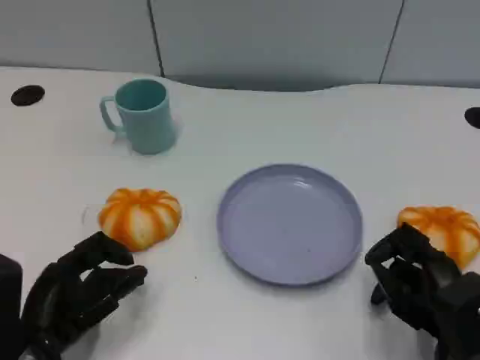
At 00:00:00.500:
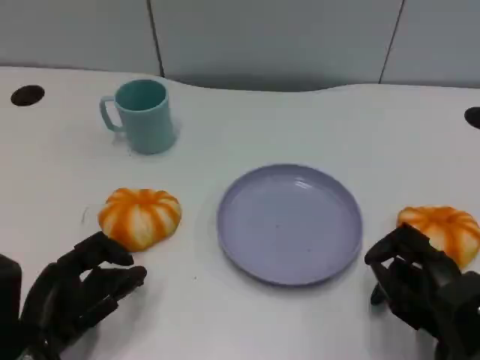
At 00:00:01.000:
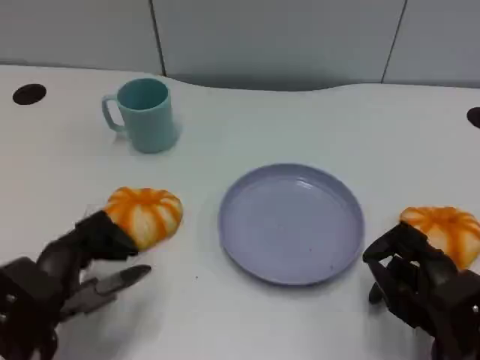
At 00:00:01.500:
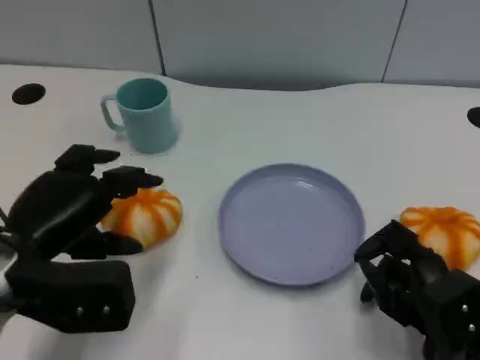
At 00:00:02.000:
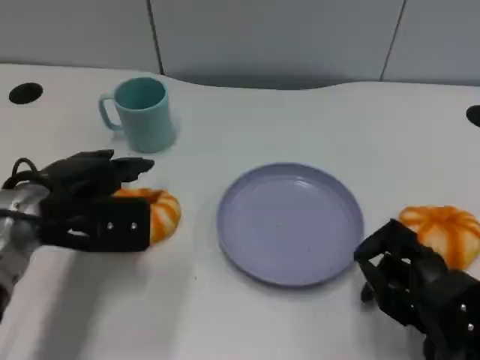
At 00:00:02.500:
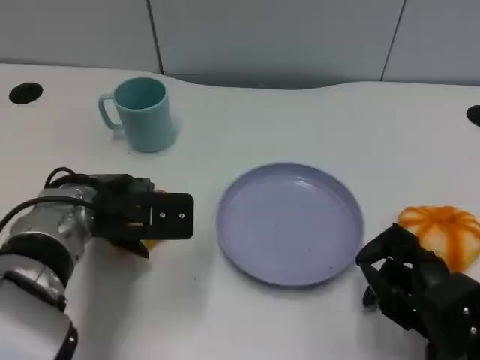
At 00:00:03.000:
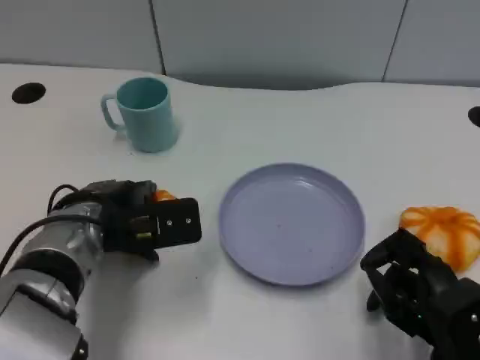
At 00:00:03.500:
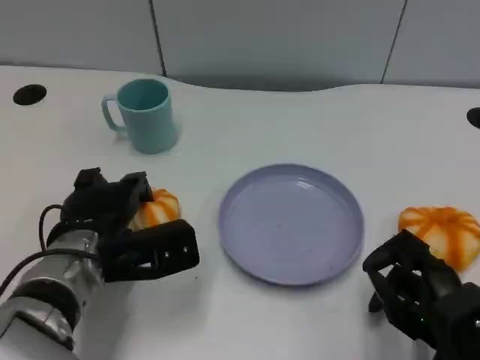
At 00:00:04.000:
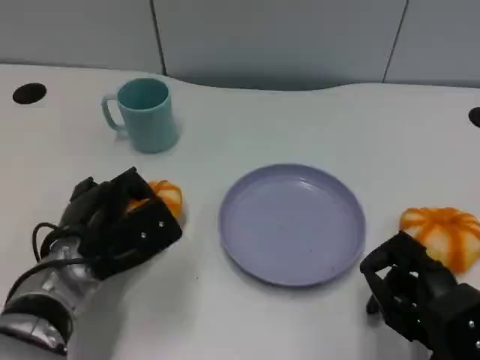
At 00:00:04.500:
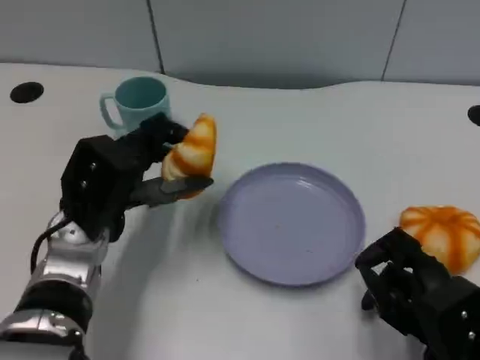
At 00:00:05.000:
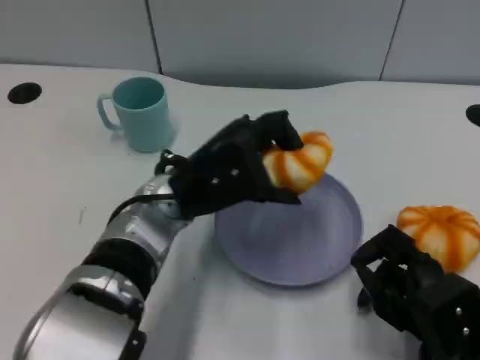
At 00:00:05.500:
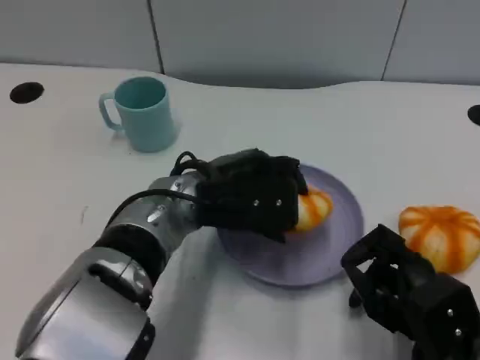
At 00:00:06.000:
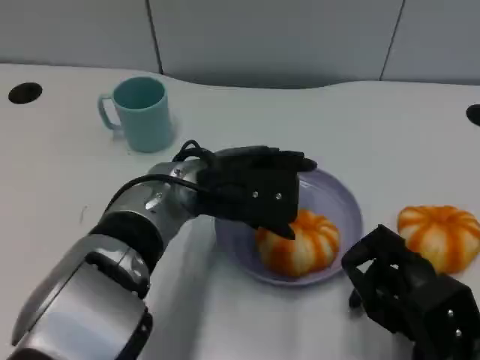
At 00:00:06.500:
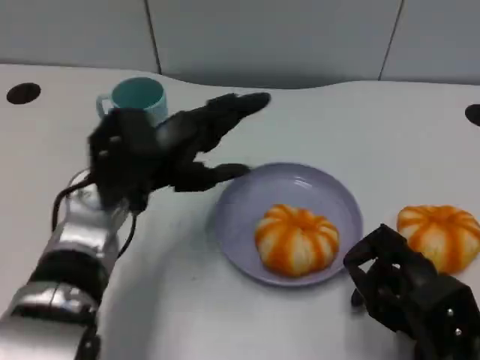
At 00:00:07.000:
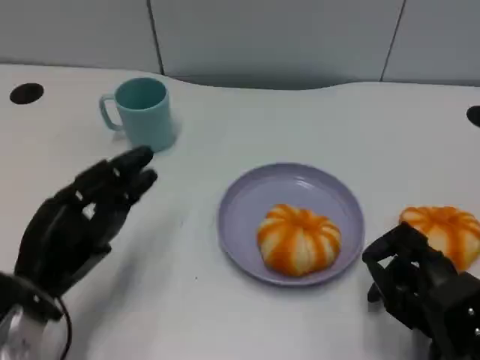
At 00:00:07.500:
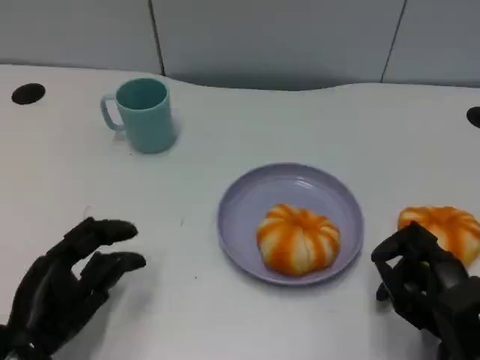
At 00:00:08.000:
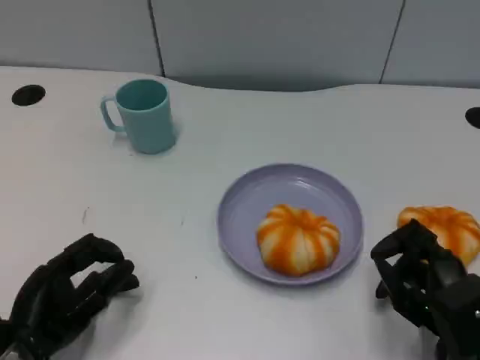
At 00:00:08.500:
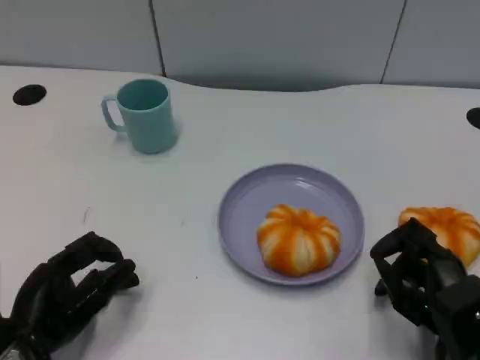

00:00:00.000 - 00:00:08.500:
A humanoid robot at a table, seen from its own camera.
Task of the whole recording: Grasp the bread from the table and place it into the plate.
00:00:00.000 - 00:00:02.000: The left hand goes about 15 cm forward and upward.
00:00:02.000 - 00:00:04.000: The left hand goes some 5 cm downward.
00:00:04.000 - 00:00:06.500: The left hand is displaced upward by roughly 5 cm, and travels to the right and back again, roughly 10 cm each way.
00:00:06.500 - 00:00:08.500: The left hand goes about 15 cm backward, downward and to the left.

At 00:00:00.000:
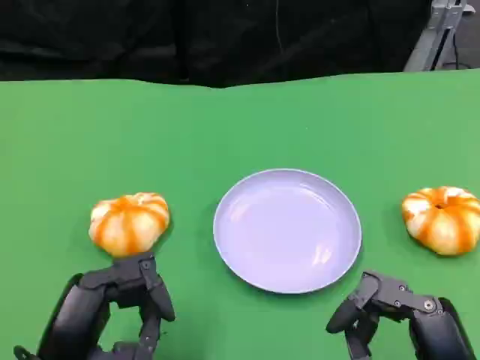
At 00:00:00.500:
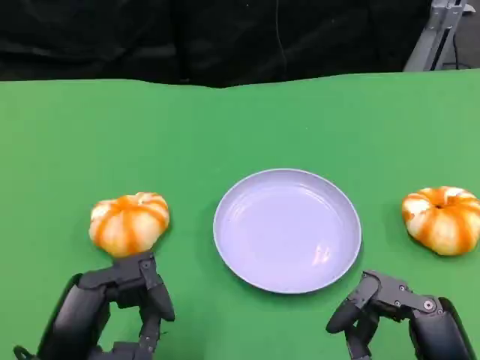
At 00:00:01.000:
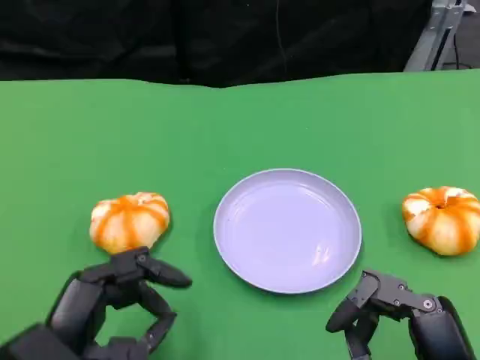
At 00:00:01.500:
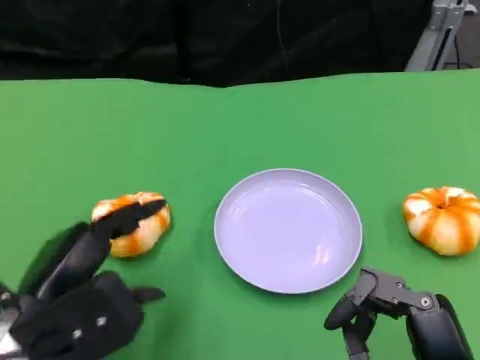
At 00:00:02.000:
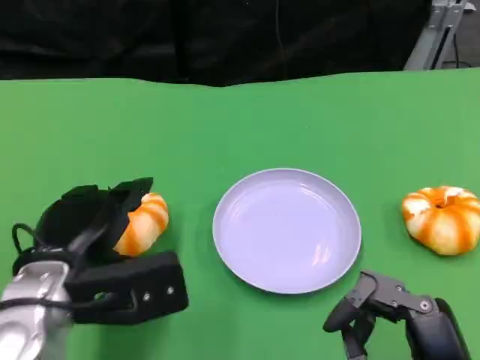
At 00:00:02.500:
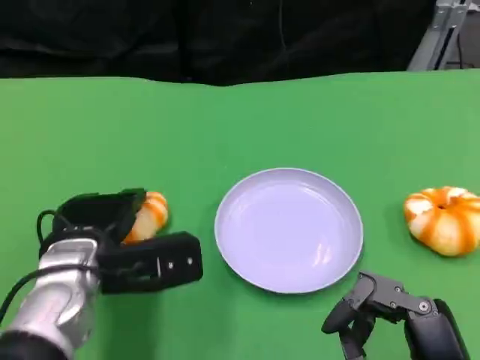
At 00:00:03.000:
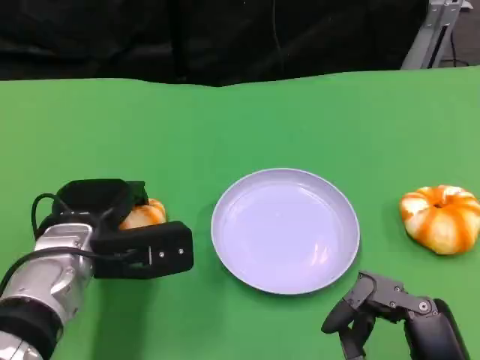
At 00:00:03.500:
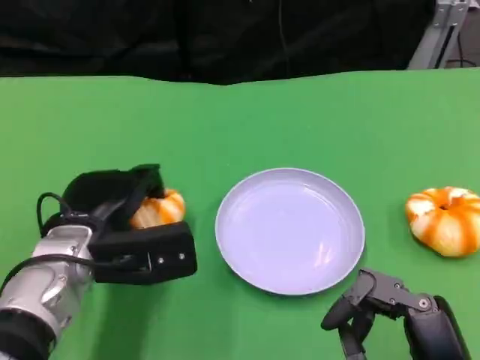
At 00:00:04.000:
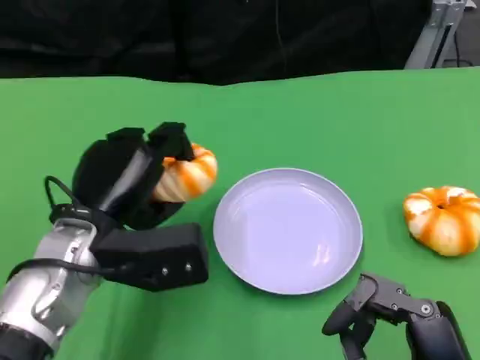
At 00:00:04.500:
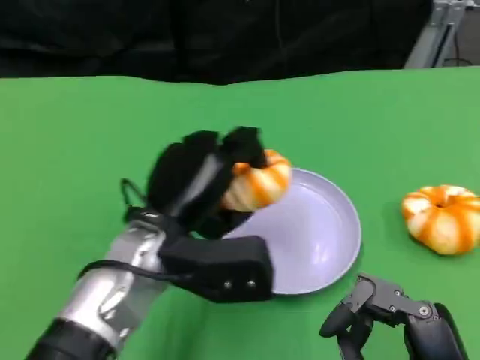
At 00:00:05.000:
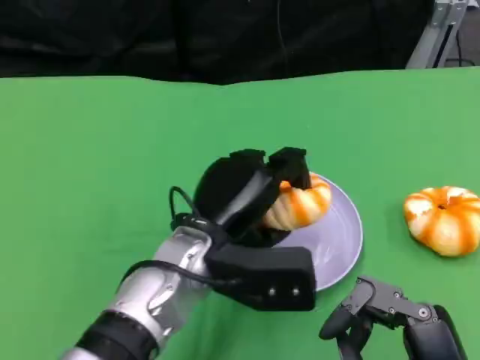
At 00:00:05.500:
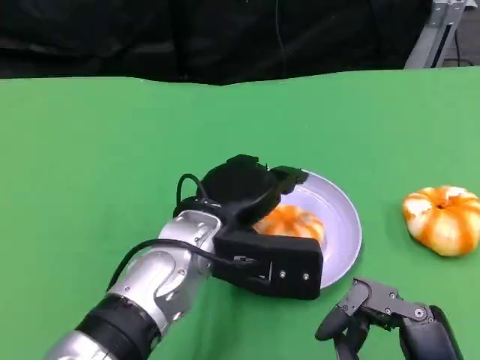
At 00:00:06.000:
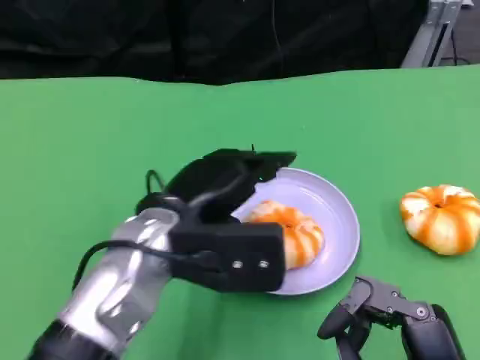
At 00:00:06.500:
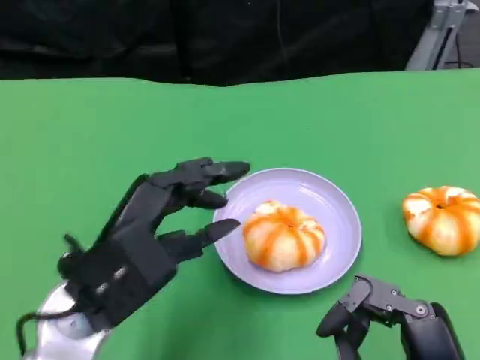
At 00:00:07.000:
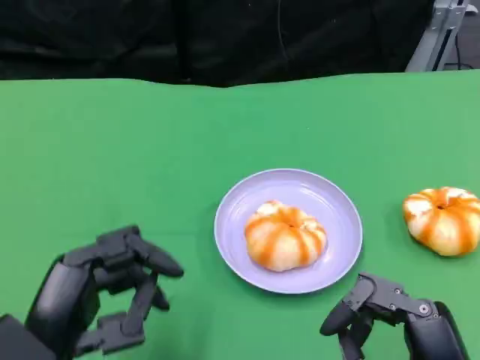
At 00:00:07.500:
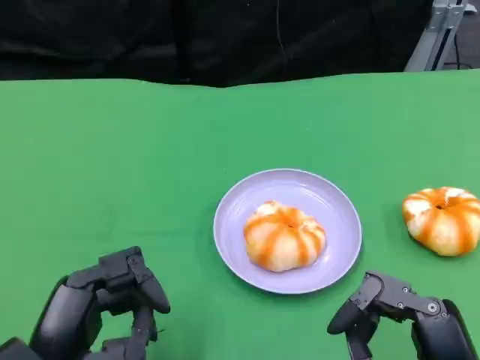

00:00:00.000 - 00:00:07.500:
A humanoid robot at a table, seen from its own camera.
Task of the whole recording: Grasp the bread from the table and place it into the plate.
00:00:00.000 - 00:00:02.000: The left hand is displaced forward by roughly 10 cm.
00:00:04.000 - 00:00:05.500: The left hand goes roughly 10 cm to the right.
00:00:05.500 - 00:00:07.500: The left hand heads to the left and backward, covering some 20 cm.

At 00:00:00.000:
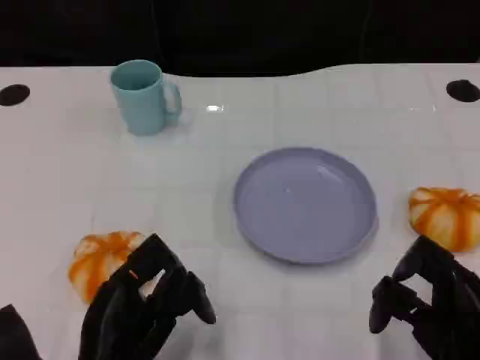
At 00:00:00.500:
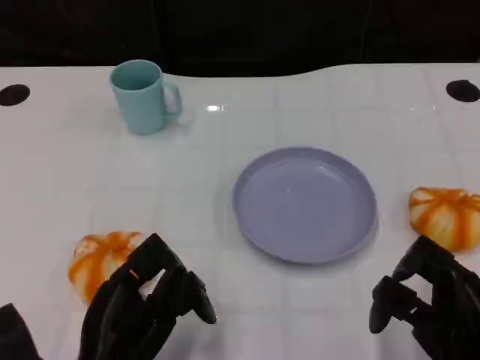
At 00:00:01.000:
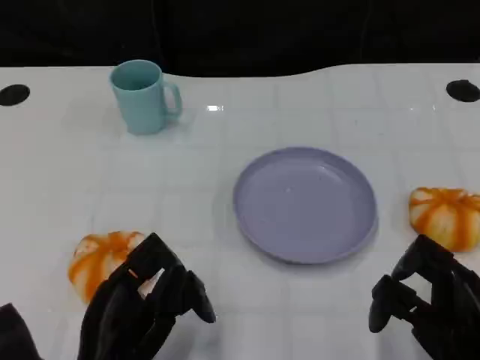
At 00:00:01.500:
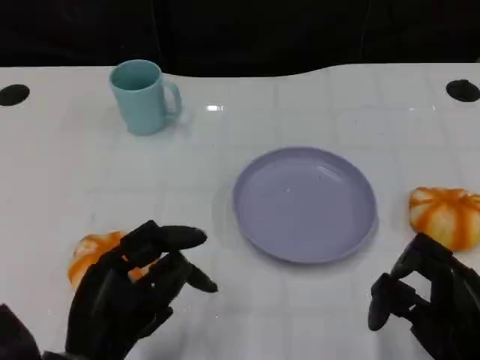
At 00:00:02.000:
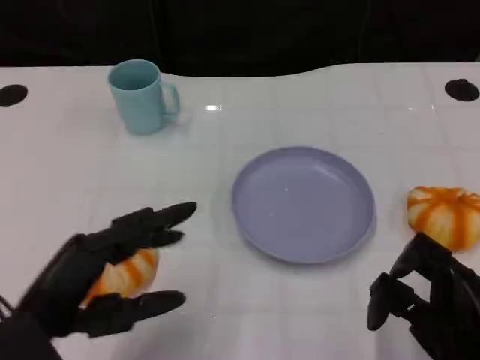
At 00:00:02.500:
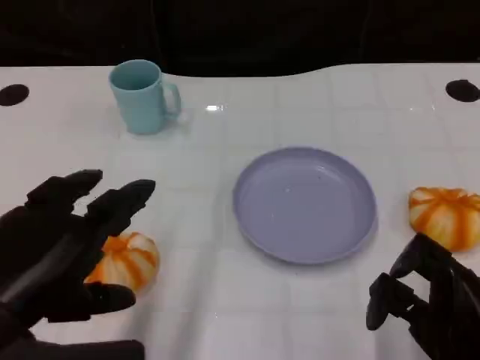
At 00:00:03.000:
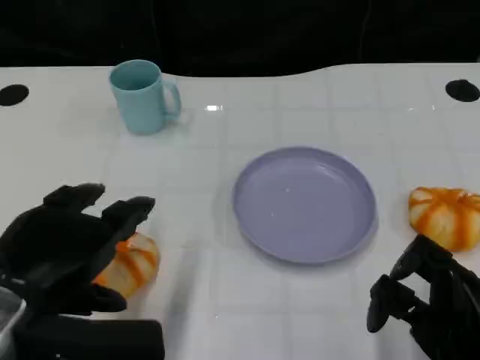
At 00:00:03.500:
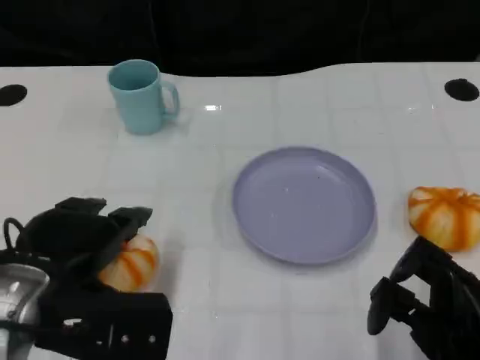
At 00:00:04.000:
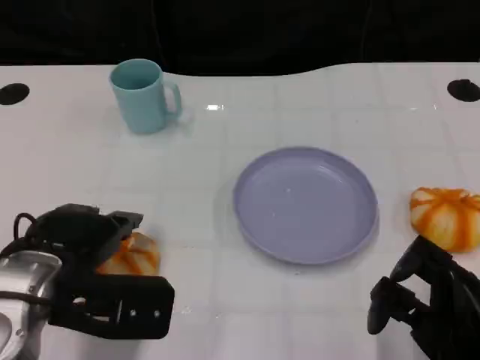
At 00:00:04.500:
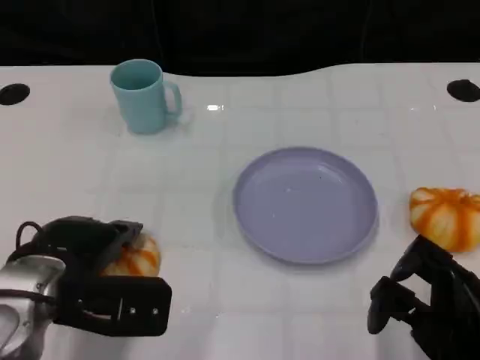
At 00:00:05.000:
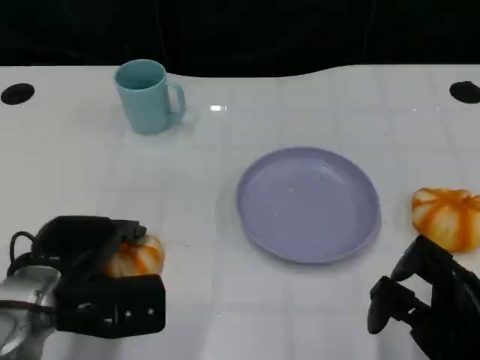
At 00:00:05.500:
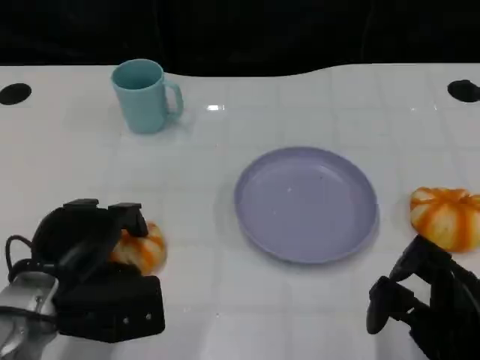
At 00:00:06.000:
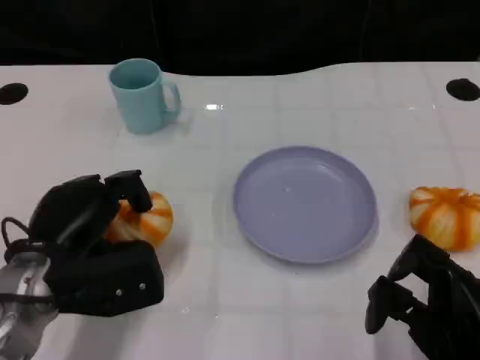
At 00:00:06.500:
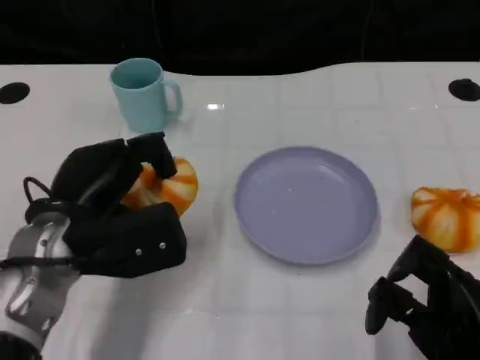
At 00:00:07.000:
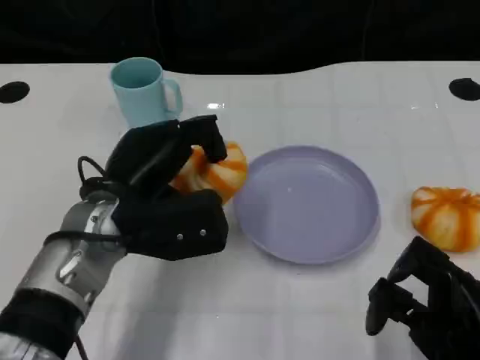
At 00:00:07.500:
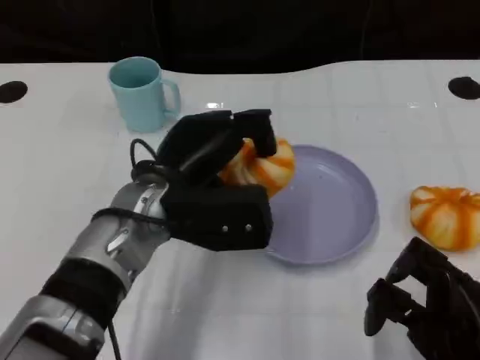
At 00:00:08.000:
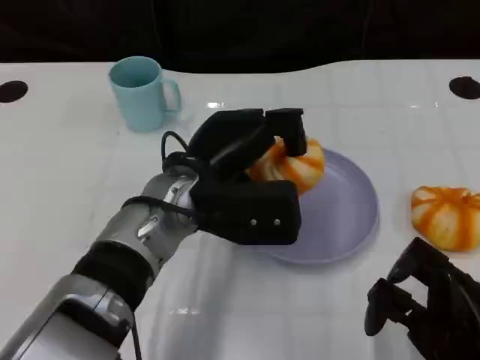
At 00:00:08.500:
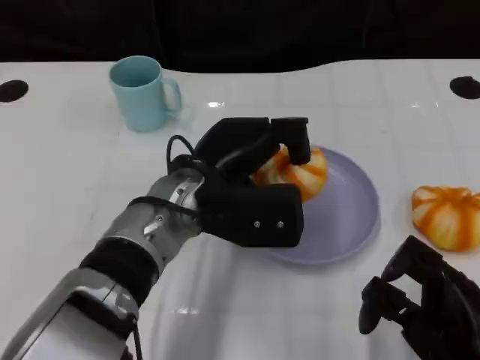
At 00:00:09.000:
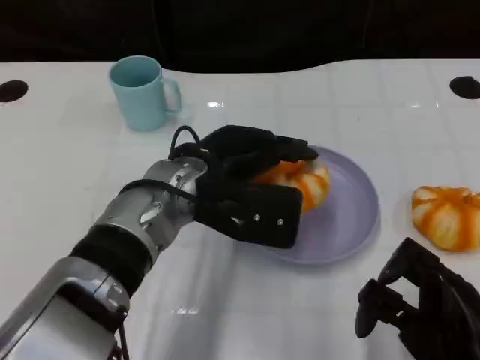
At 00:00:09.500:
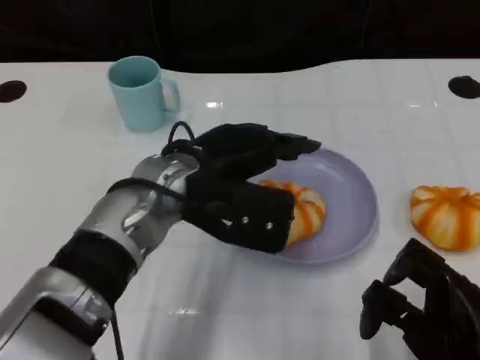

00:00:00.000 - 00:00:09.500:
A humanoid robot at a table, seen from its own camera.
Task of the whole recording: Grasp the bread from the table and place it into the plate.
00:00:00.000 - 00:00:02.000: The left hand shifts approximately 10 cm upward and to the left.
00:00:02.000 - 00:00:04.000: The left hand travels forward by roughly 5 cm.
00:00:04.000 - 00:00:05.500: The left hand goes about 5 cm downward.
00:00:05.500 - 00:00:07.500: The left hand heads to the right, upward and forward, covering approximately 15 cm.
